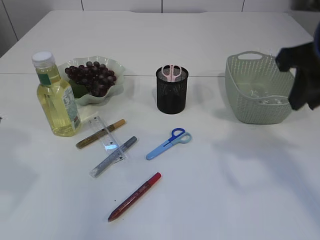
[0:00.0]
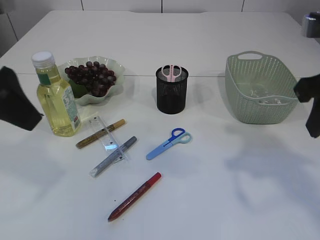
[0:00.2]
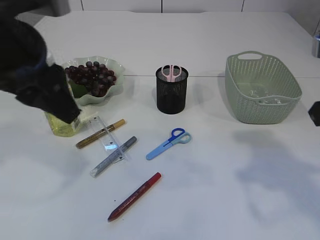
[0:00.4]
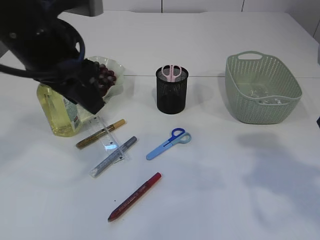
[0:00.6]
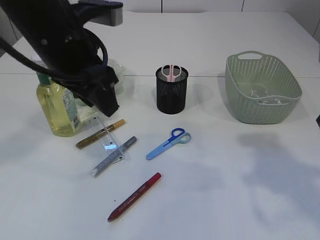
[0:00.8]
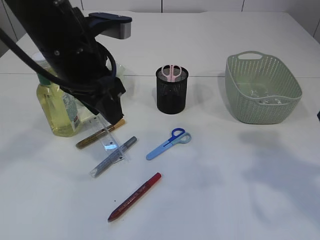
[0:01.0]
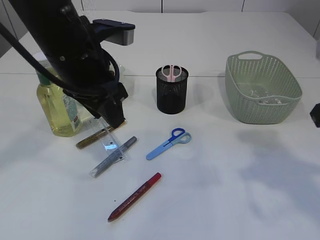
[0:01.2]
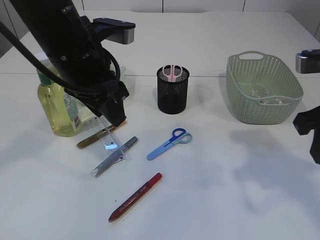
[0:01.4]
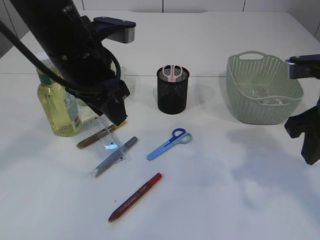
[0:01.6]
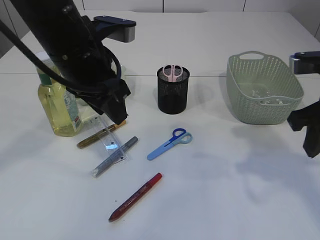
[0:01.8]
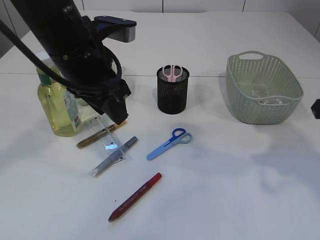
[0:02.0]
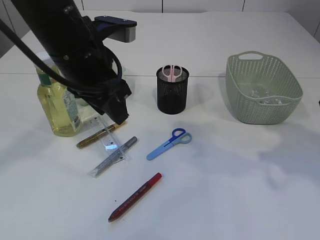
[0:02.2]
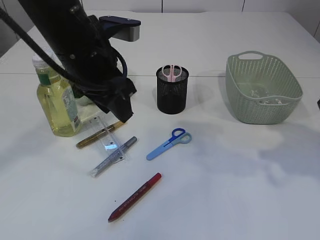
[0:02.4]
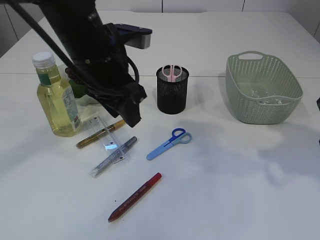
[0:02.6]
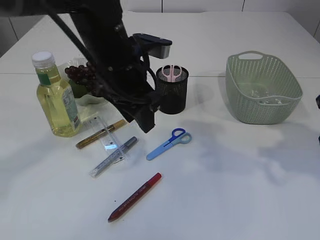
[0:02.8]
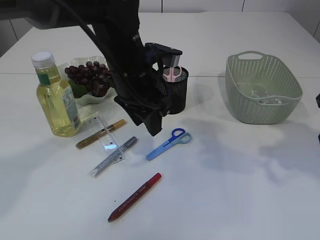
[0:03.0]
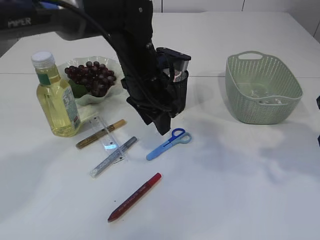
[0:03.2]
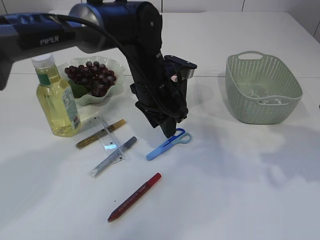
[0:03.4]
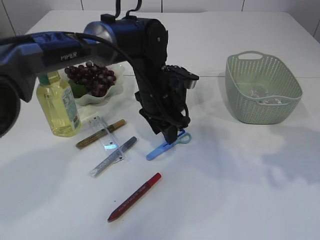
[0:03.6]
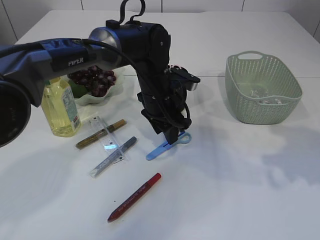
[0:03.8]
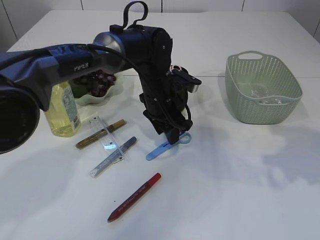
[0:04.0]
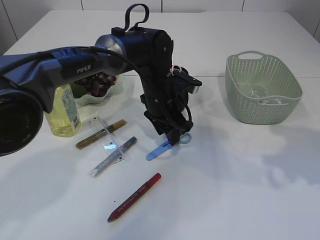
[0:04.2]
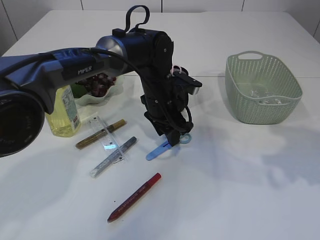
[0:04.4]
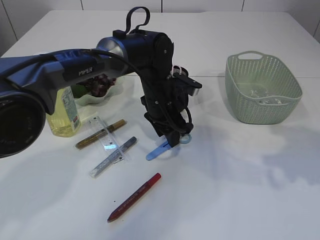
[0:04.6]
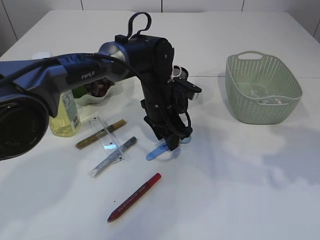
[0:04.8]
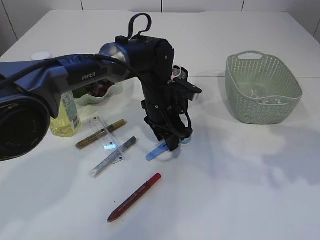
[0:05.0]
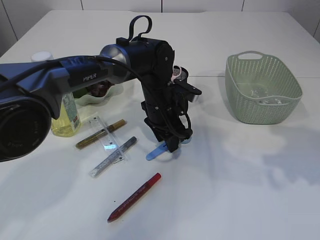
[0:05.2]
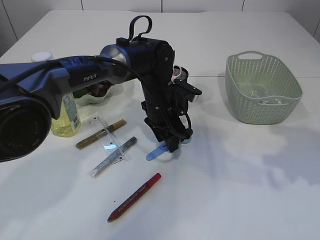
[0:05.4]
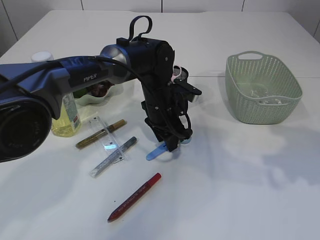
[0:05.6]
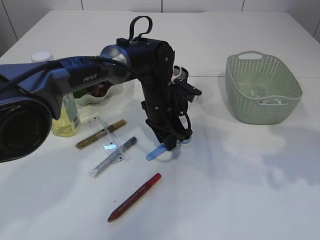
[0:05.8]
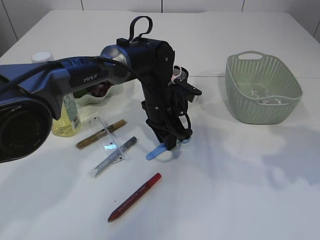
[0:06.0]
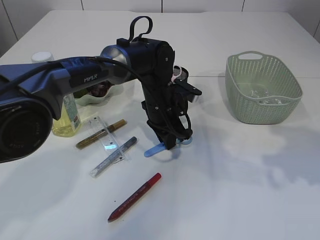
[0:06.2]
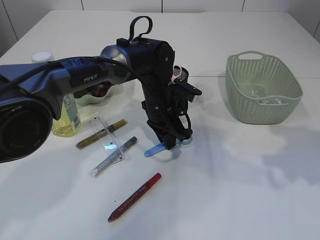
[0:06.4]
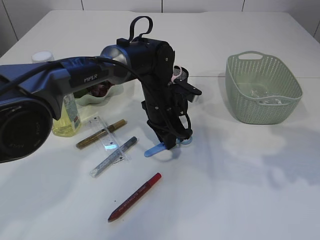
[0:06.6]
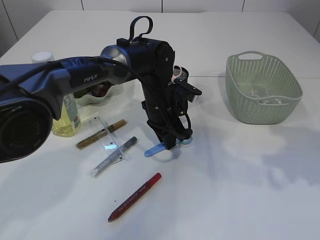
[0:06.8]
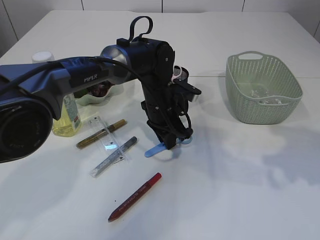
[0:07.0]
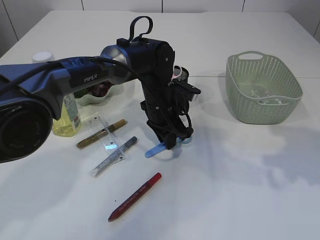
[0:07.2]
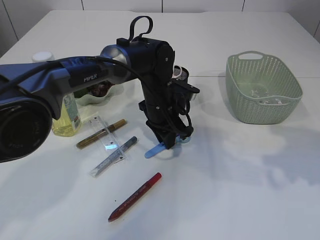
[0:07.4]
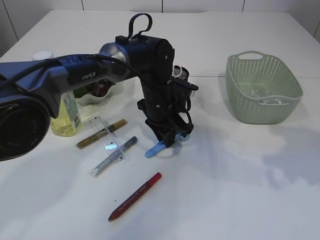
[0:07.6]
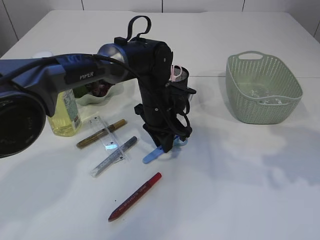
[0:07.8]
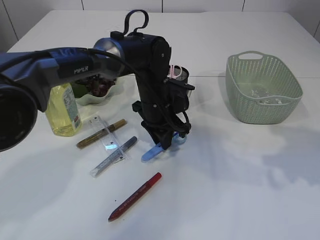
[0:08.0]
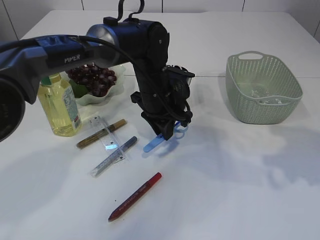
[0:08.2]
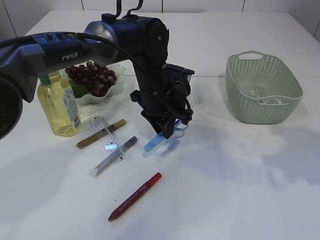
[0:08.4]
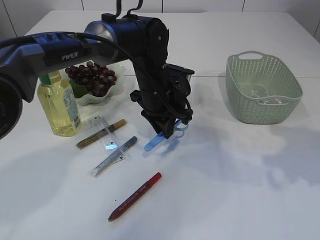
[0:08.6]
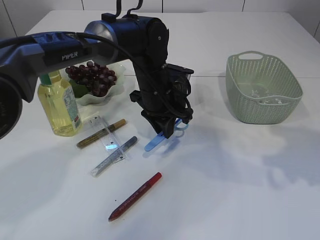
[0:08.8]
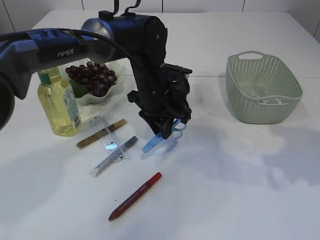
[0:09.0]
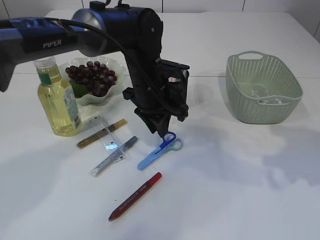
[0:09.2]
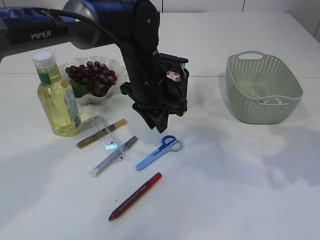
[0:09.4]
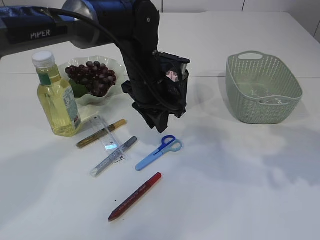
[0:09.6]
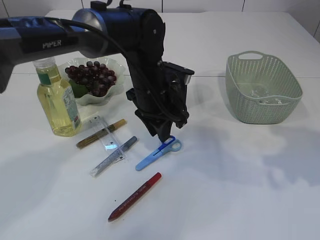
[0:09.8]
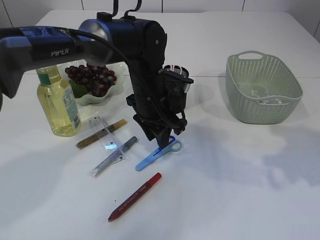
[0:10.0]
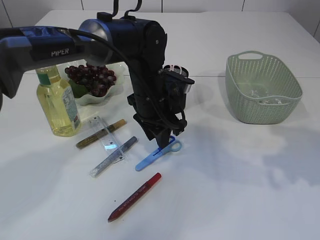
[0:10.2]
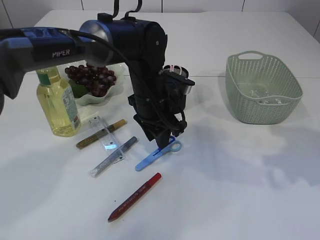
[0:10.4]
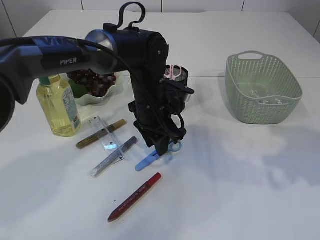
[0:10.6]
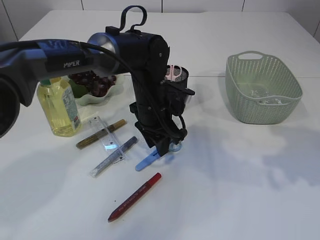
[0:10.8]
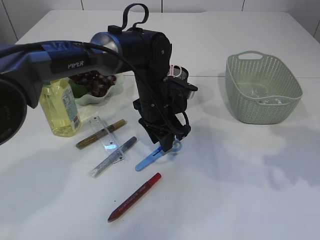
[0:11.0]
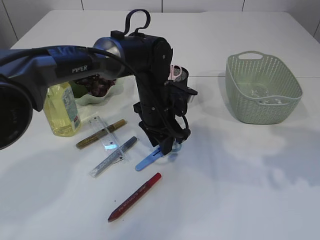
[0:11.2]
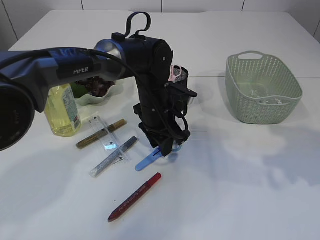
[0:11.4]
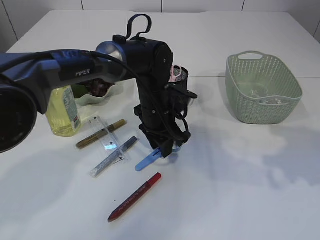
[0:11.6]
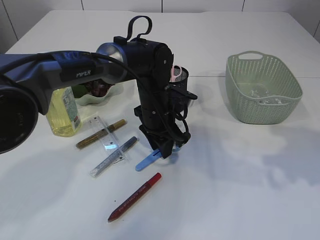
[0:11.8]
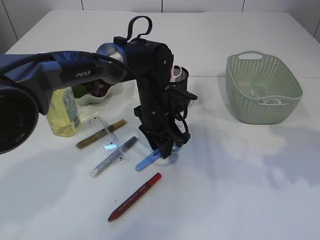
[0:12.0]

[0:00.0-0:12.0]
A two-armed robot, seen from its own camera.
0:00.0 to 0:01.6: The right gripper moves downward, roughly 5 cm, while the left gripper shifts some 20 cm to the right, forward and downward.
0:01.6 to 0:03.0: Both grippers move to the right, roughly 5 cm.
0:03.0 to 0:04.4: The left gripper travels downward and forward by some 10 cm.
0:04.4 to 0:09.0: The grippers make only small movements.
0:09.0 to 0:12.0: The grippers make only small movements.

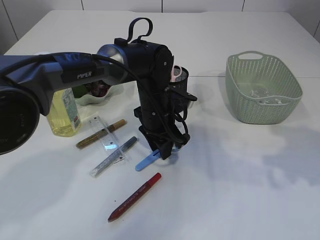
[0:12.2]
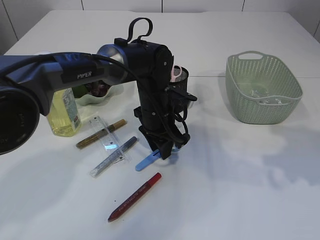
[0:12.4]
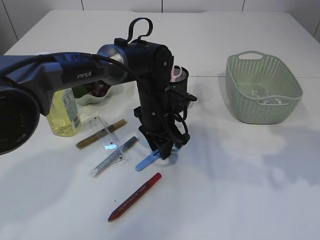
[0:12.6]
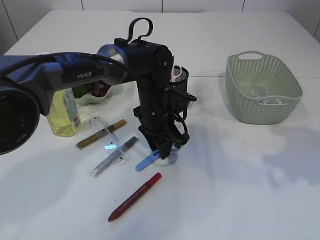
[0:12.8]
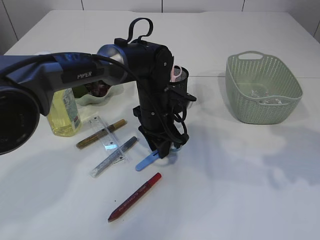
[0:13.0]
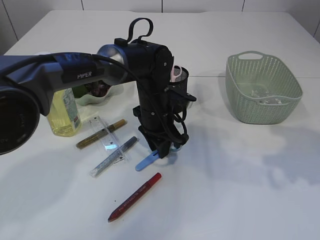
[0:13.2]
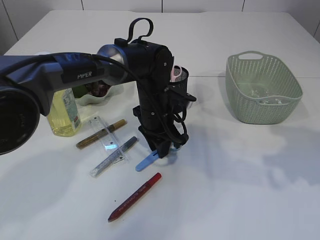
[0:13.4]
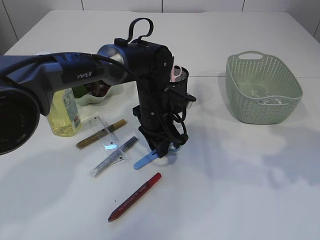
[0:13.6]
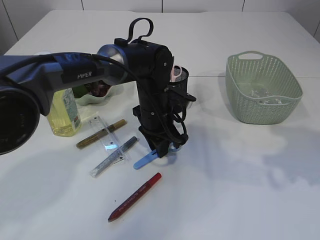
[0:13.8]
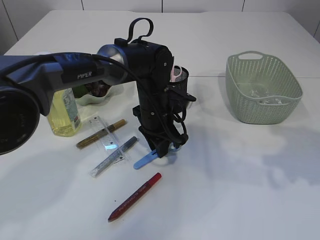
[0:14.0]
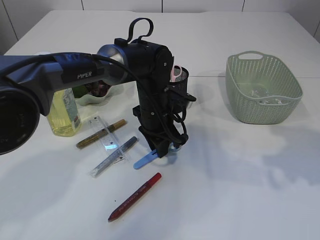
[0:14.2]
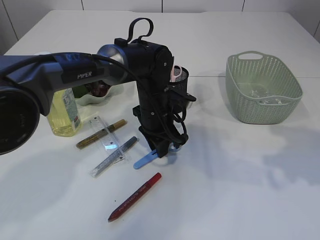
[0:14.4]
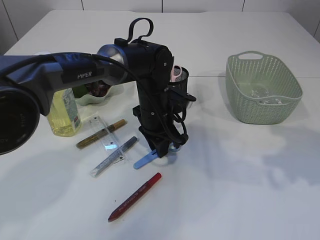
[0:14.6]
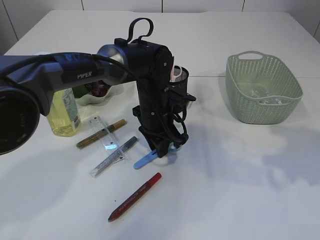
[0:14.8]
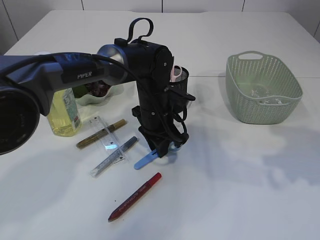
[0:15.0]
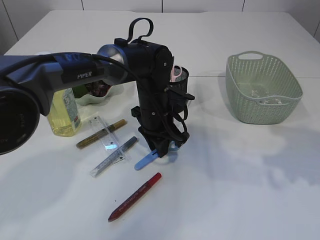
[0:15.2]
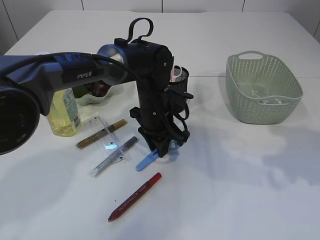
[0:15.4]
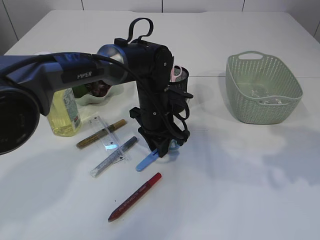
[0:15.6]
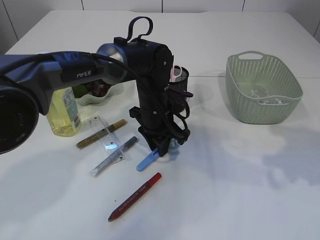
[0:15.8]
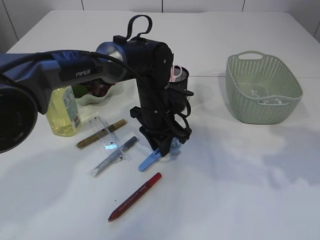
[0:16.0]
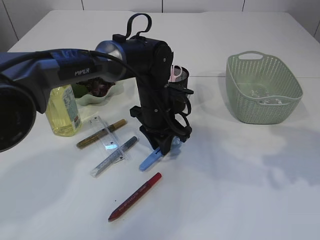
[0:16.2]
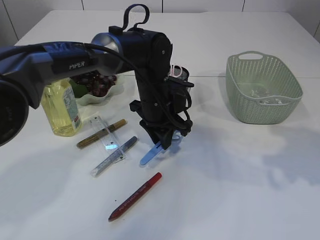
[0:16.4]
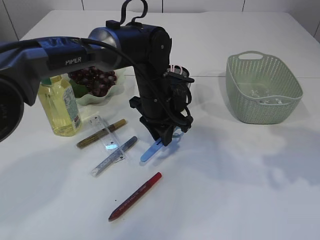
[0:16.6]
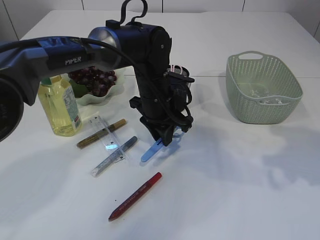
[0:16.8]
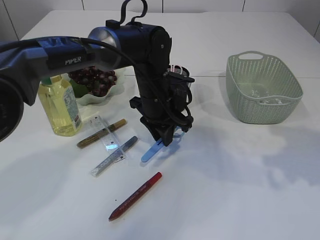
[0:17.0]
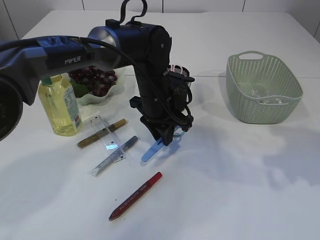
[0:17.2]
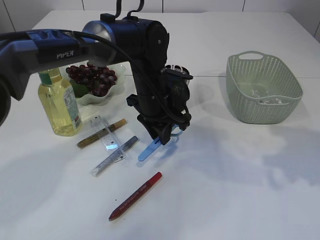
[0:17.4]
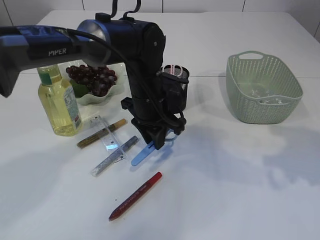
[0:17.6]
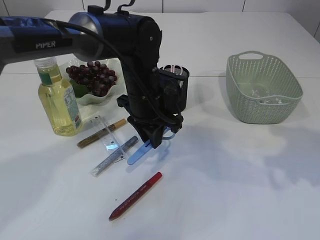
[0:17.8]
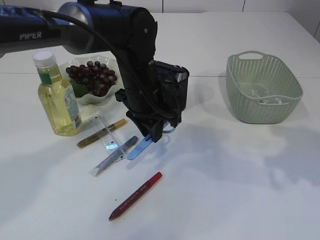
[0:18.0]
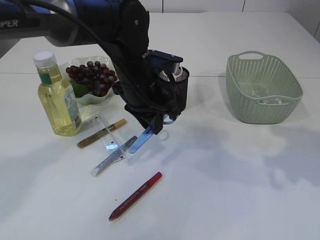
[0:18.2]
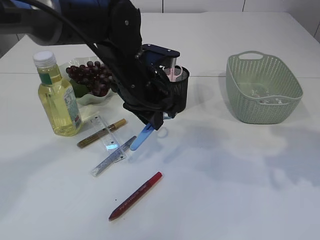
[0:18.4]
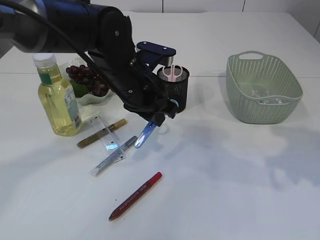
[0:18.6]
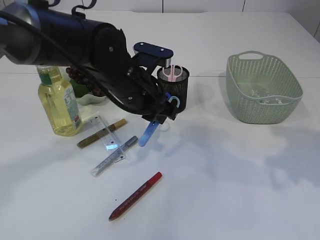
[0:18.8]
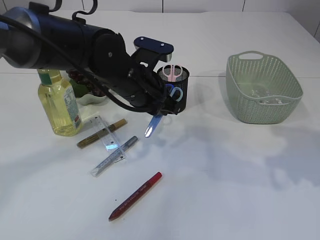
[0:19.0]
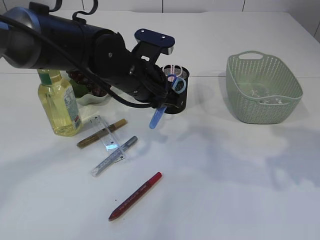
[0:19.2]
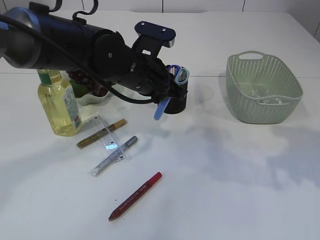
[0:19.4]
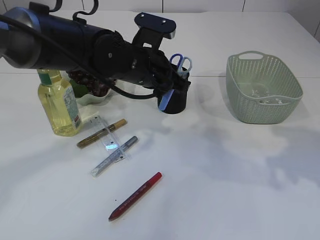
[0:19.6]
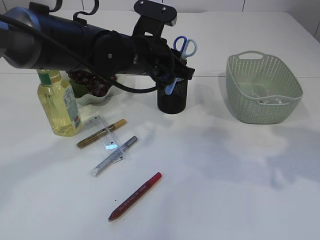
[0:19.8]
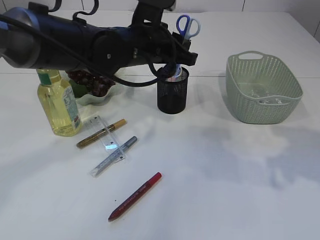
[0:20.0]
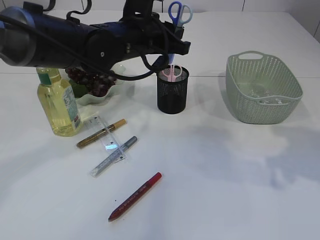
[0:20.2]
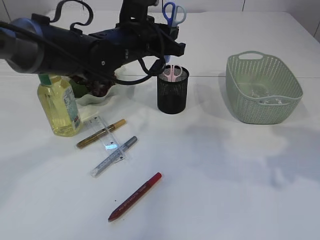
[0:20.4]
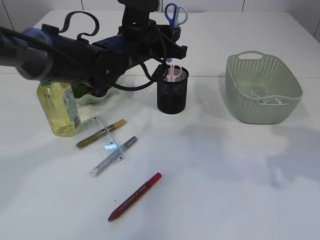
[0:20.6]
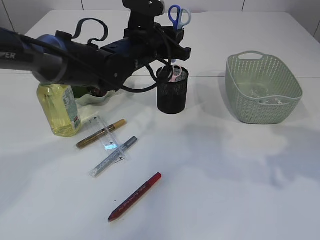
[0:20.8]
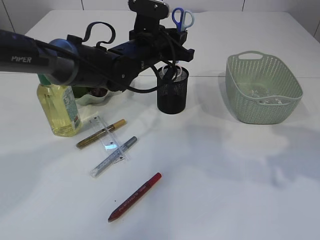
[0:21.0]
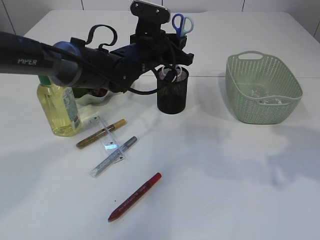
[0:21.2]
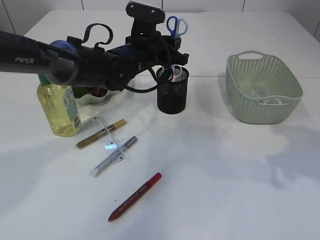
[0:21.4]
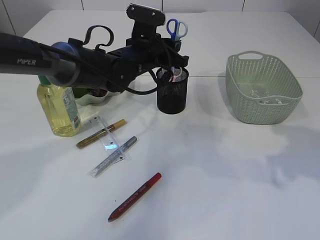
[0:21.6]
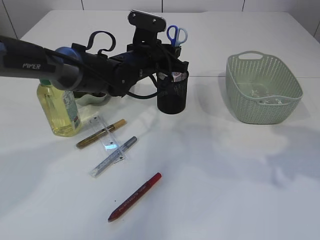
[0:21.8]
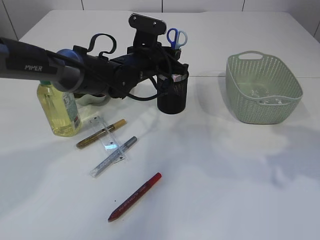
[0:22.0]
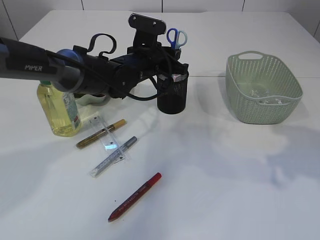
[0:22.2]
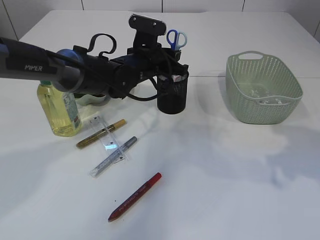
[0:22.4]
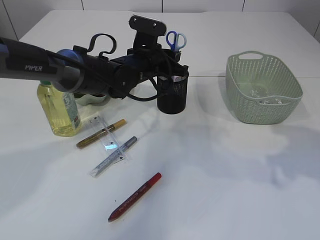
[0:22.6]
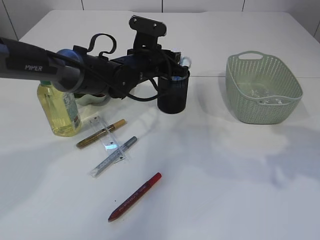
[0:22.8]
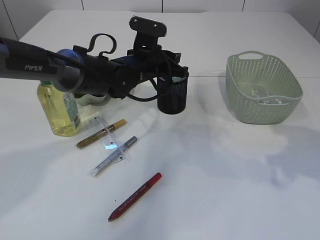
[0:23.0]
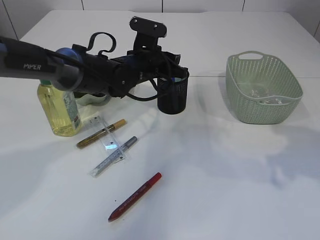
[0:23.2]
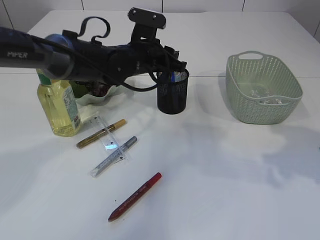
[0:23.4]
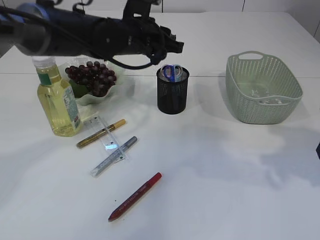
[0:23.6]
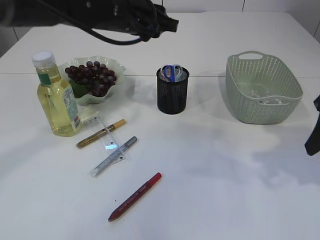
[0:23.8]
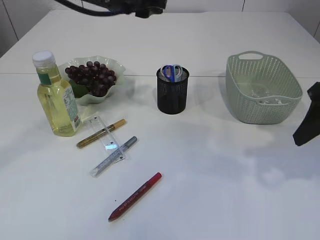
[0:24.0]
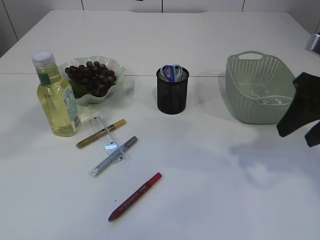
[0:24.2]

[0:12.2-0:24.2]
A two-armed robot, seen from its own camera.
Step, 0:12.2 to 0:17.6: pick up the blue scissors.
Step, 0:17.8 to 0:23.4: Place the blue scissors into the pen holder.
0:12.2 to 0:15.2: Both grippers stay about where they are.
0:15.2 to 0:16.6: The grippers stay close to where they were, moving slightly.
0:16.6 to 0:18.2: The left gripper travels upward by about 5 cm.
0:18.2 to 0:19.8: The right gripper opens.
0:19.8 to 0:21.2: The left gripper moves forward, some 5 cm.
0:21.2 to 0:22.6: The grippers stay close to where they were, moving slightly.
0:22.6 to 0:24.2: The left gripper heads upward and backward, covering approximately 20 cm.
